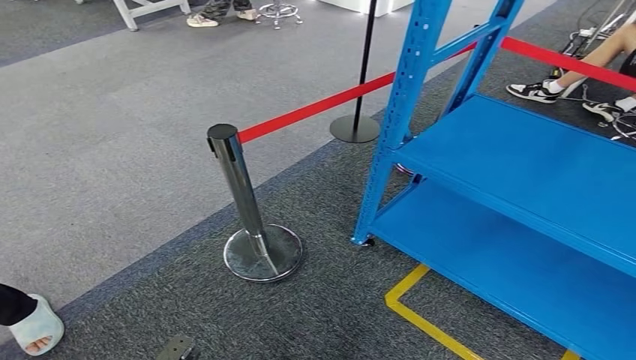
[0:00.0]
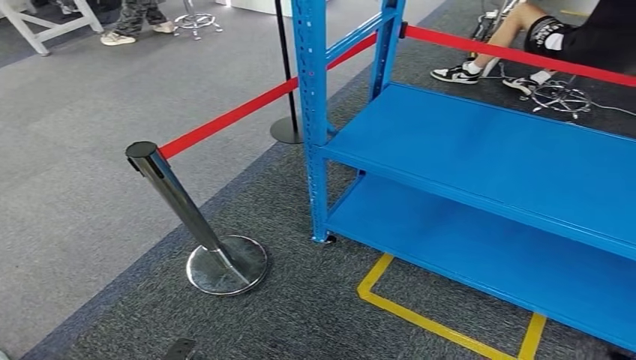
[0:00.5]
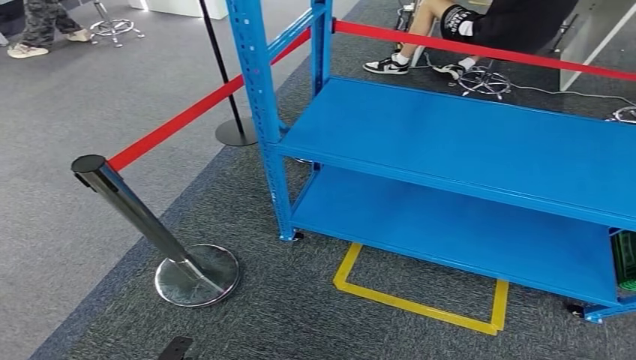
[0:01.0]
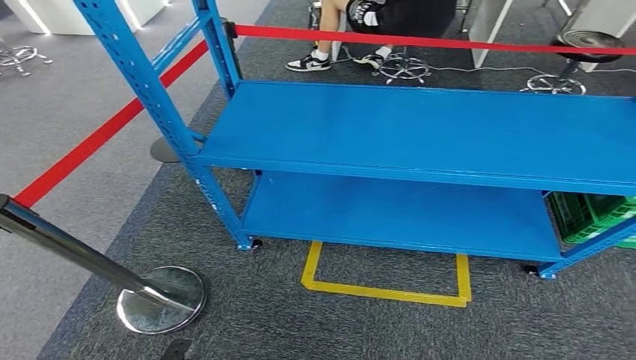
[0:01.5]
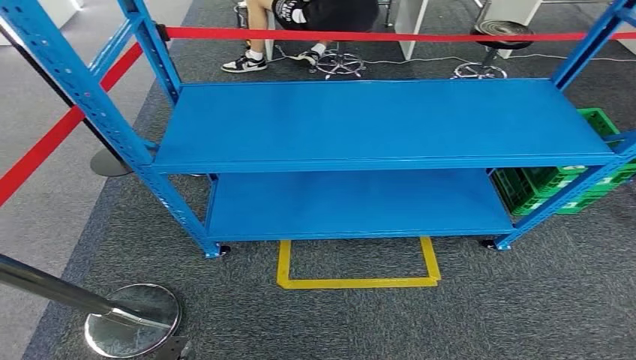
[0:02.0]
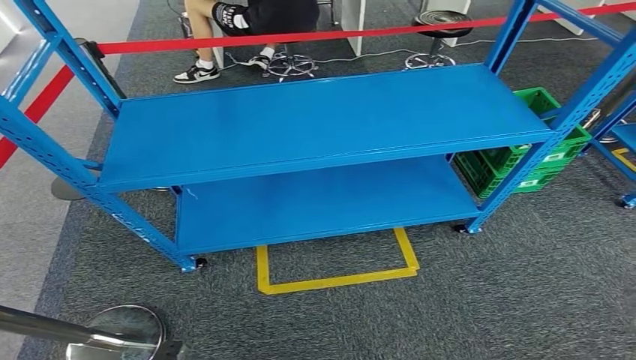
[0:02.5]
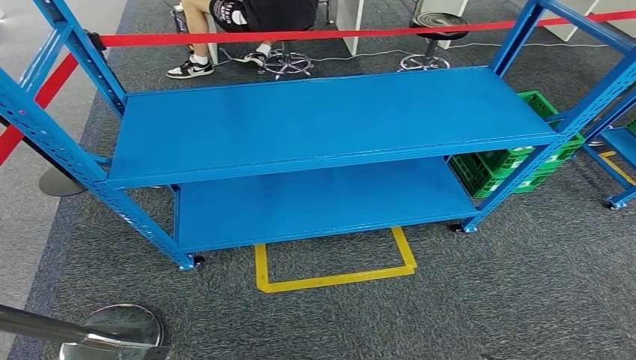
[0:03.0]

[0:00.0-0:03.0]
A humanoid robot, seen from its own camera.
Step, 0:00.0 to 0:03.0: Return to the initial position at the workbench.

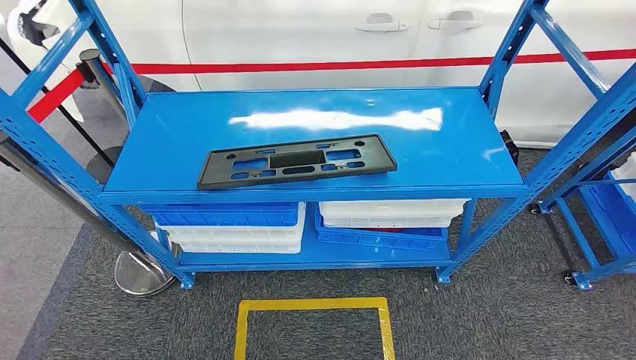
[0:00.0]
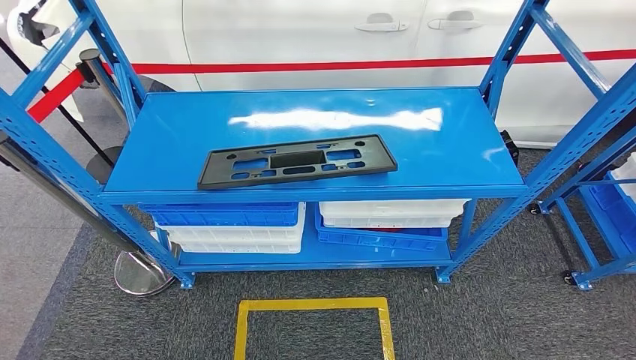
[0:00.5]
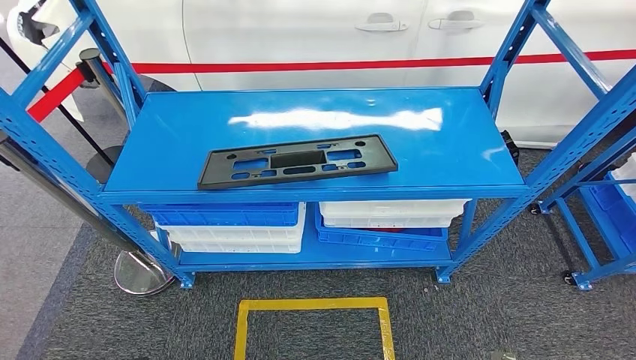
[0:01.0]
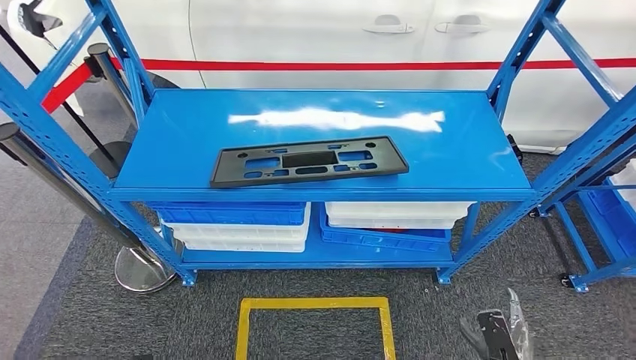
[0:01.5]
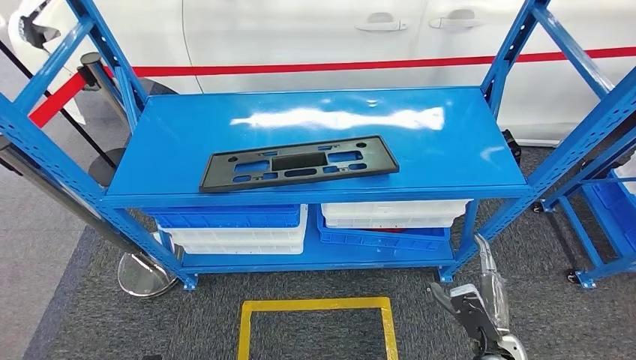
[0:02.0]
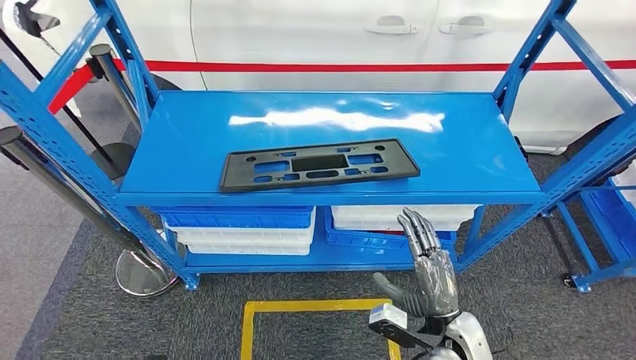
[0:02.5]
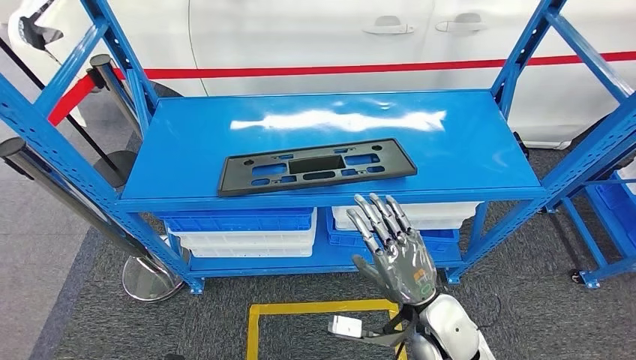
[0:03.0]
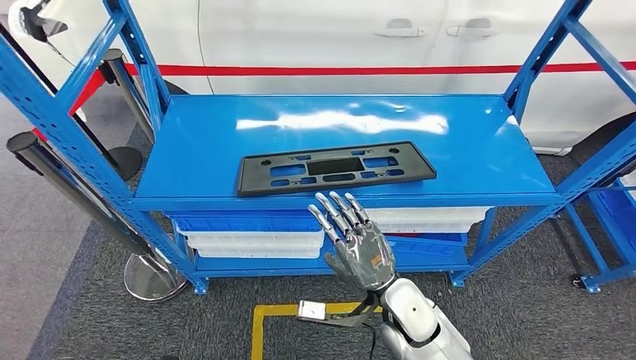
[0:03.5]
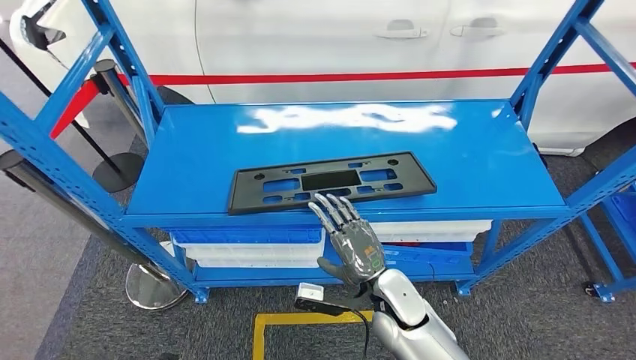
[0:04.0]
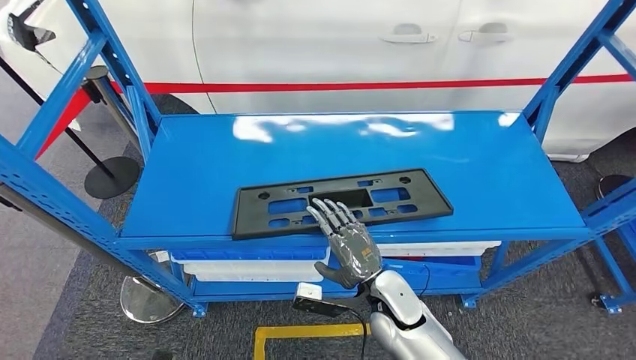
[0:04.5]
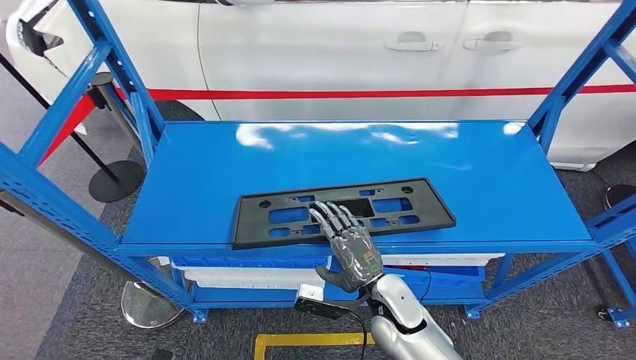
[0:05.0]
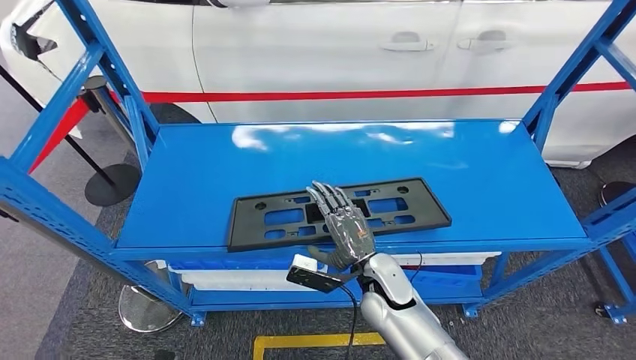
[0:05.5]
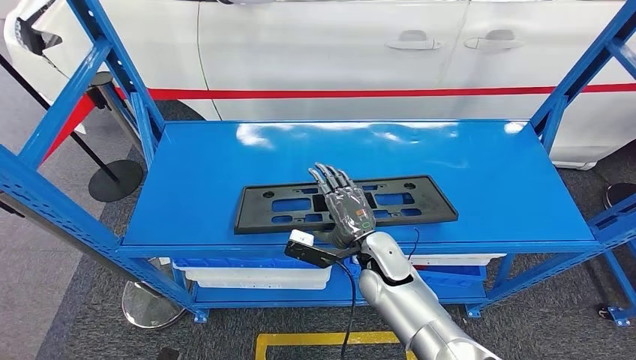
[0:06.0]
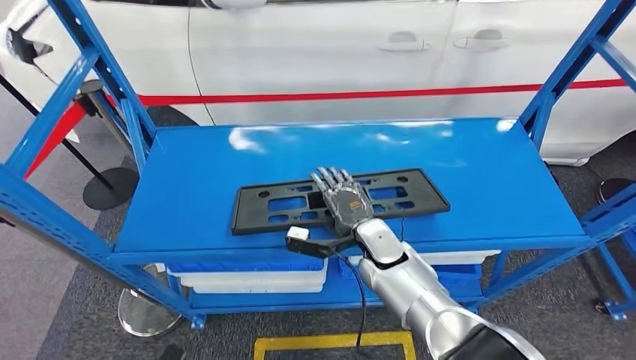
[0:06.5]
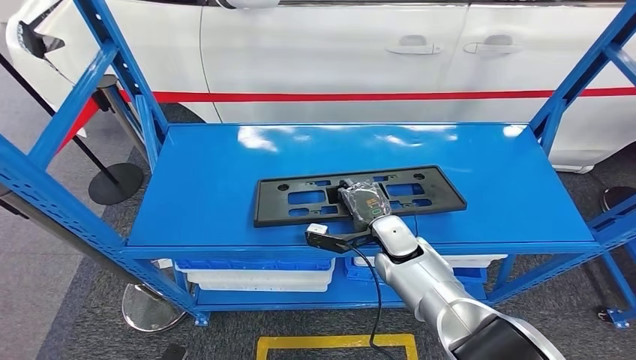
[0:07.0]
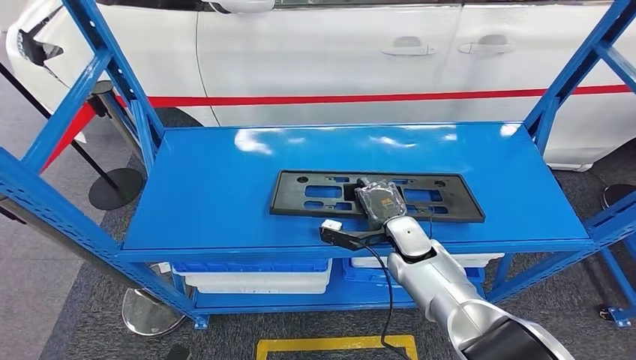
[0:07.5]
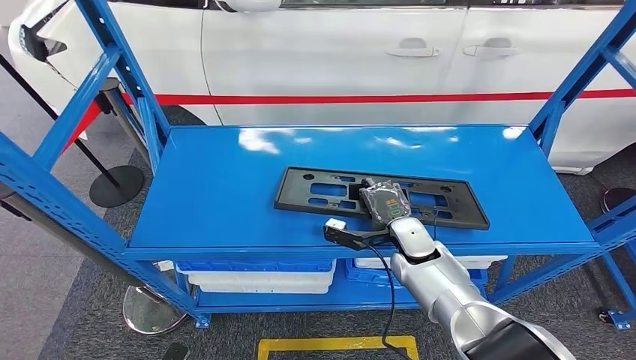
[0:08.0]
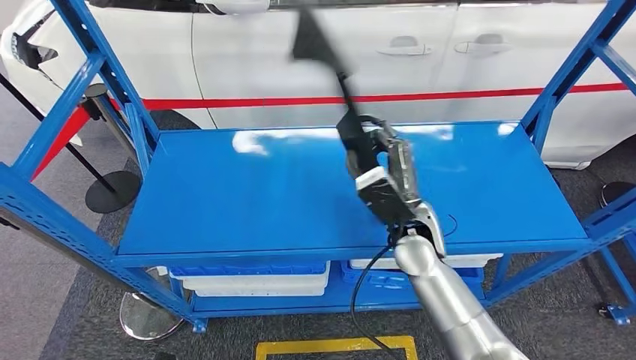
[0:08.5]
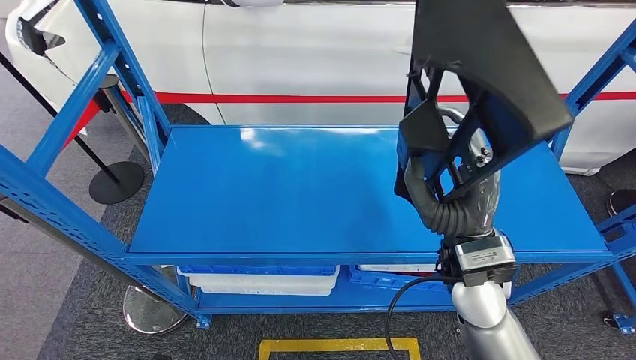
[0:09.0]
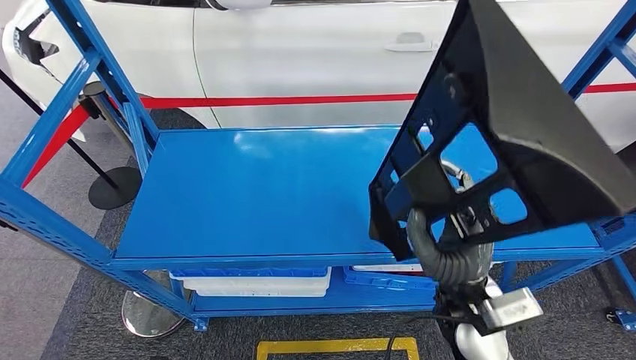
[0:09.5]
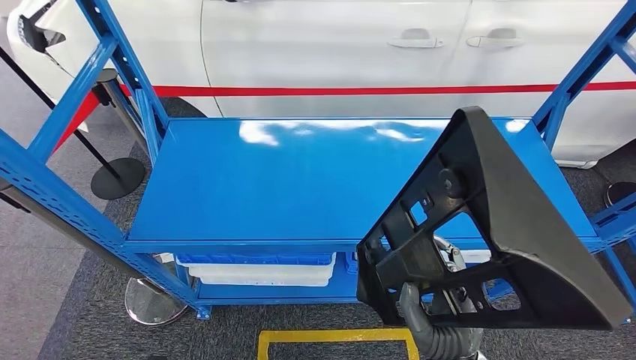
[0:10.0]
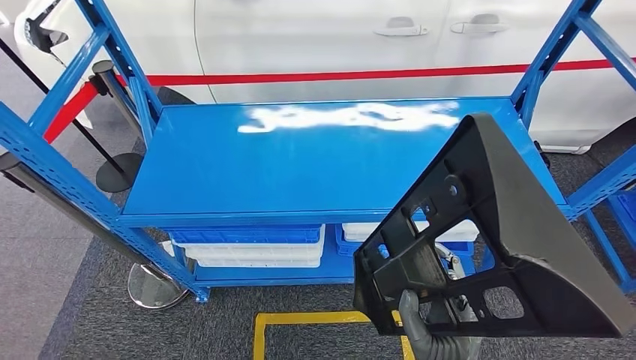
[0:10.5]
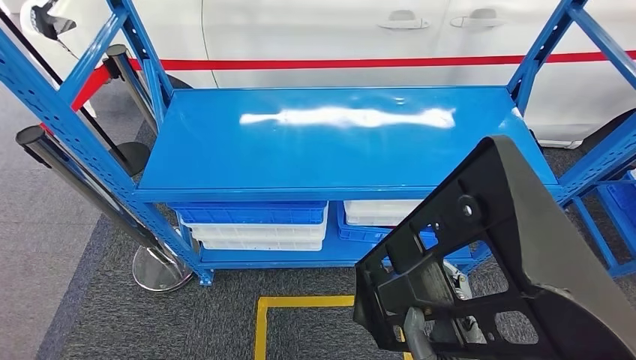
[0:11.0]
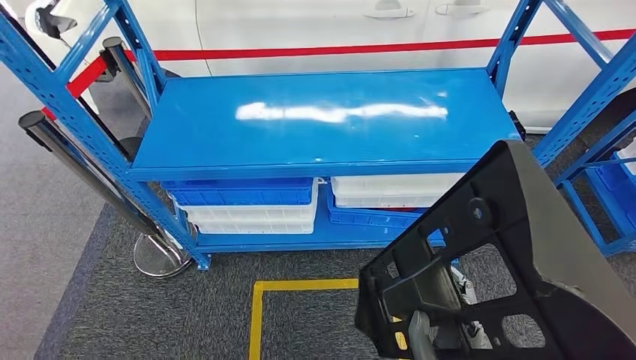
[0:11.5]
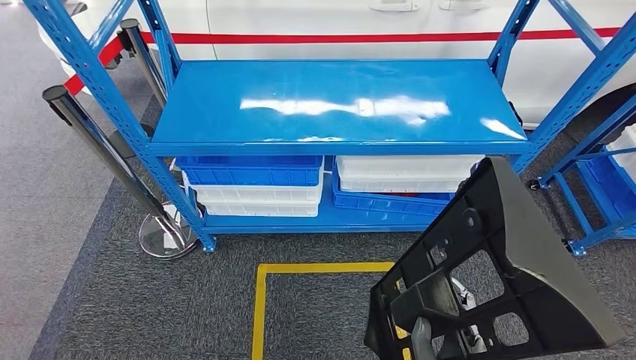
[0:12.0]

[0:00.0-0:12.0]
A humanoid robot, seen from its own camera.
Step, 0:00.0 to 0:10.5: Pick up the large parts from the shelf.

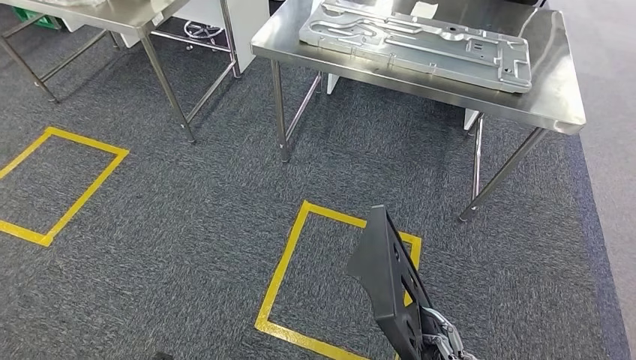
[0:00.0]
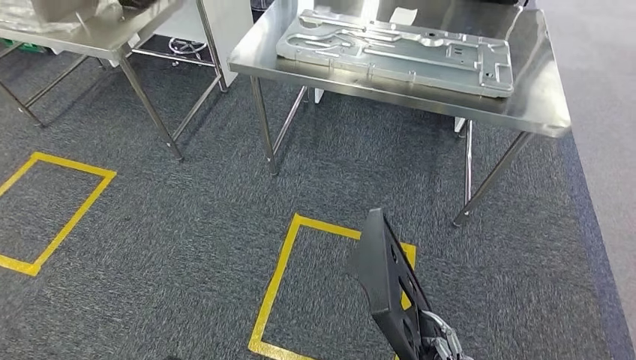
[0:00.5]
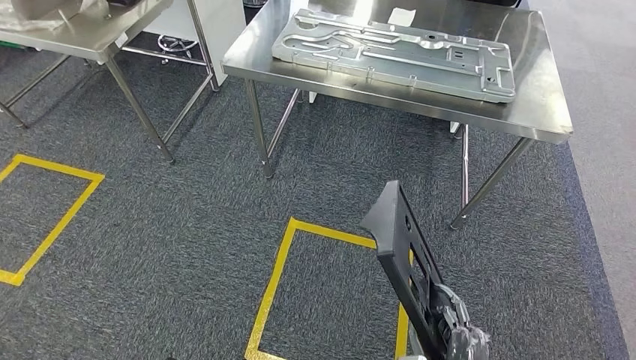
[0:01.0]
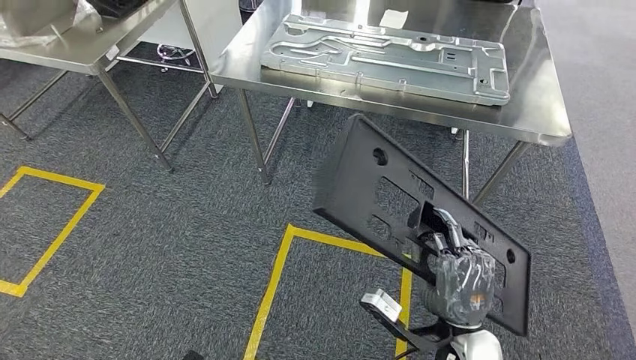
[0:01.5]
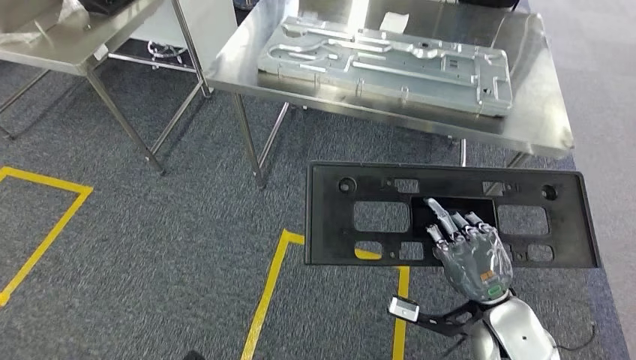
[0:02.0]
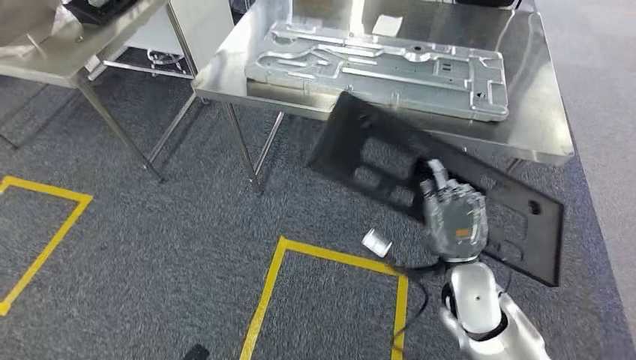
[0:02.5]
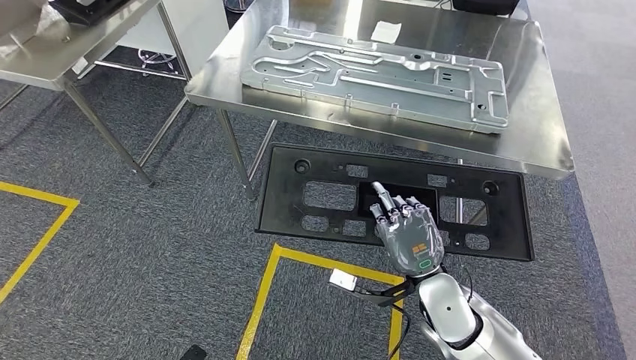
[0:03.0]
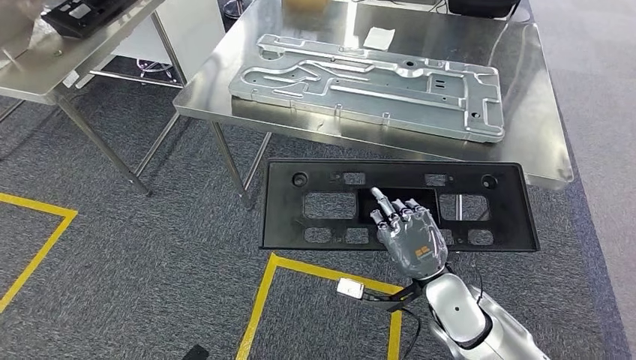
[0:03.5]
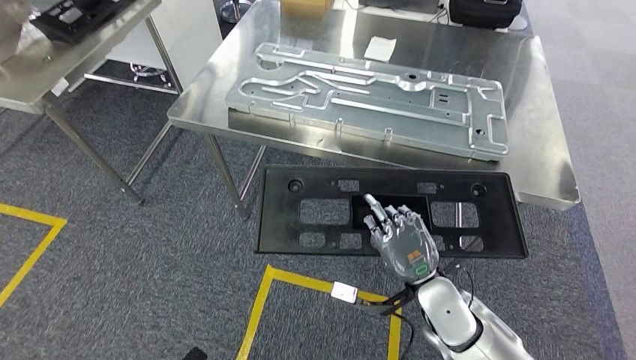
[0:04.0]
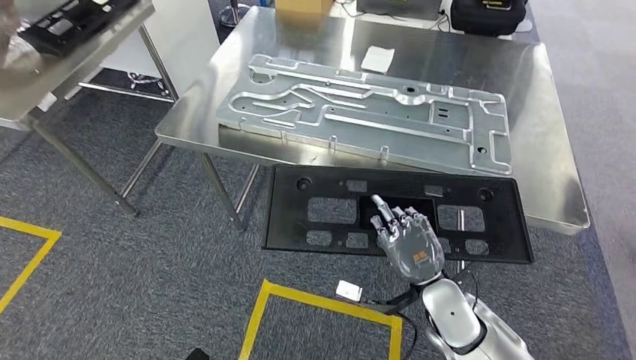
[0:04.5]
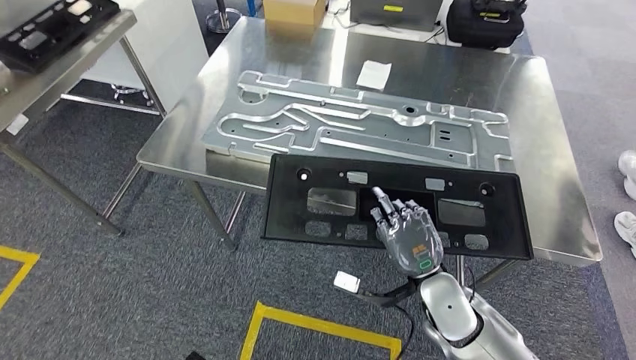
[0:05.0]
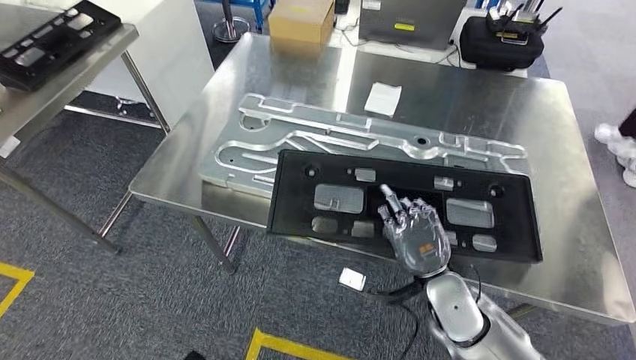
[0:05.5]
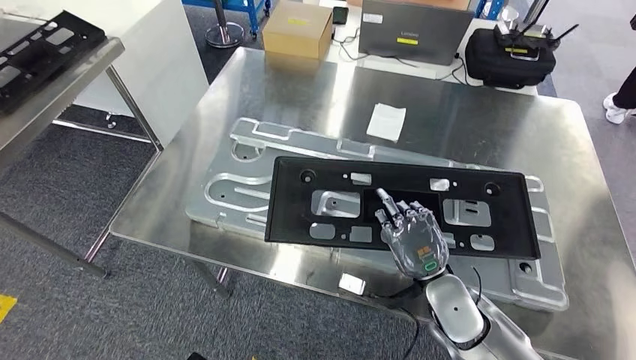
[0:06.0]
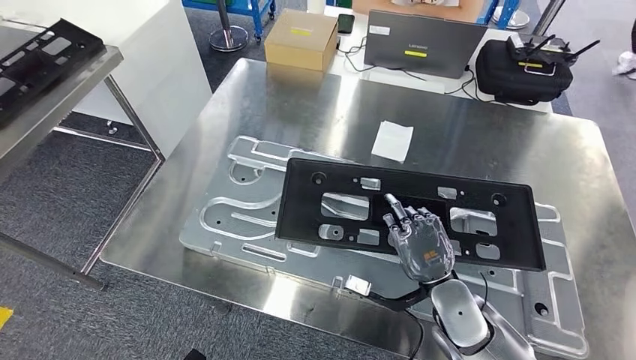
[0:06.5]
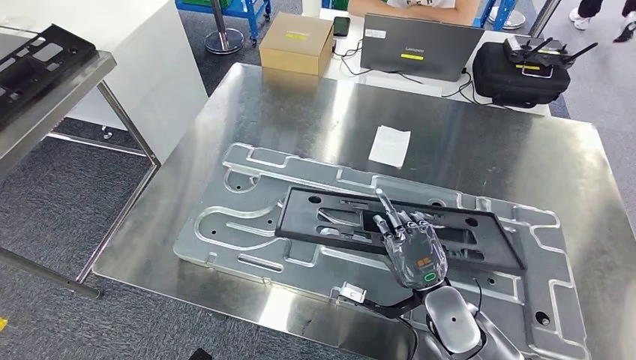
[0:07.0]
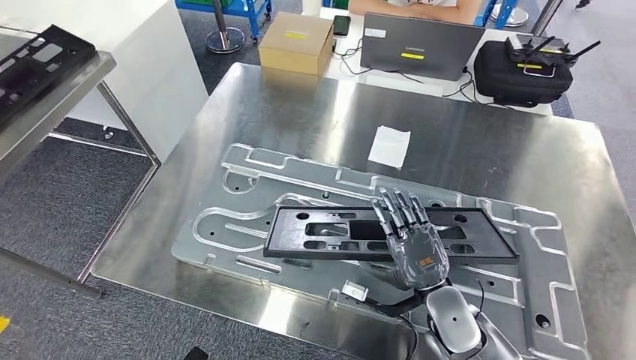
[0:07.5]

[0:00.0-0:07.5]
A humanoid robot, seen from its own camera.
Step, 0:00.0 to 0:07.0: Move the large parts to the workbench.
